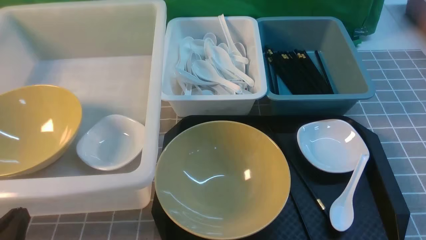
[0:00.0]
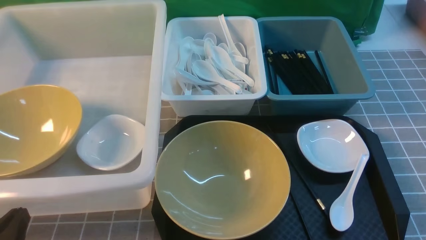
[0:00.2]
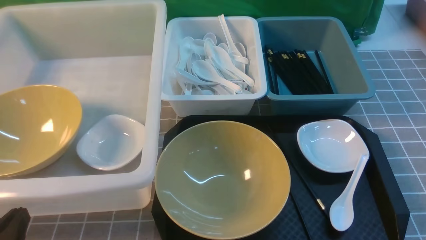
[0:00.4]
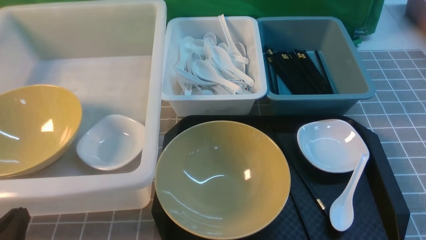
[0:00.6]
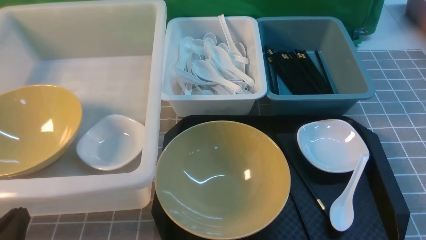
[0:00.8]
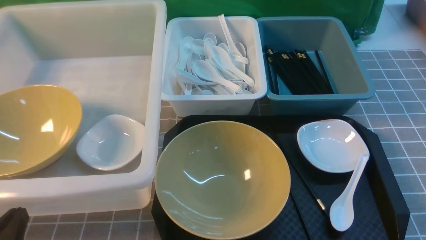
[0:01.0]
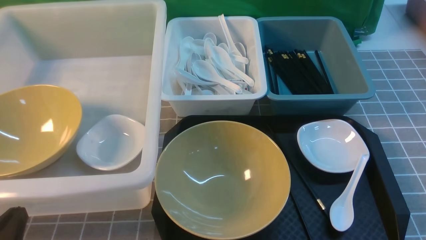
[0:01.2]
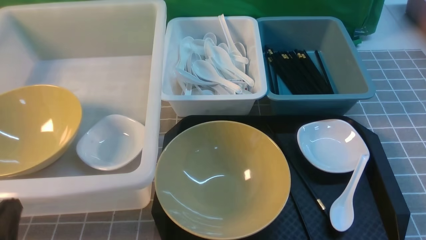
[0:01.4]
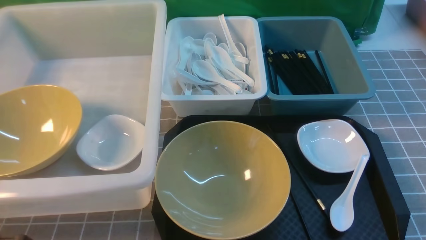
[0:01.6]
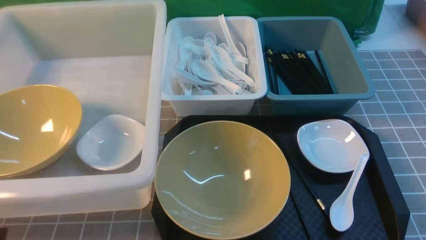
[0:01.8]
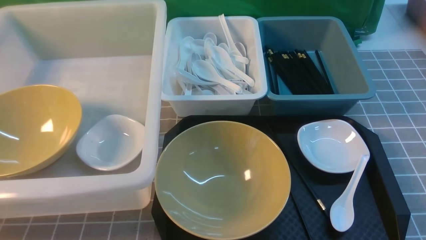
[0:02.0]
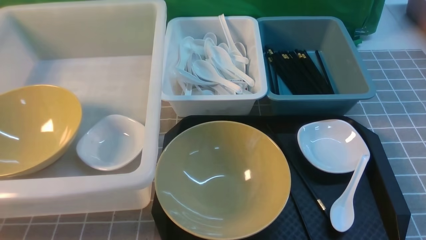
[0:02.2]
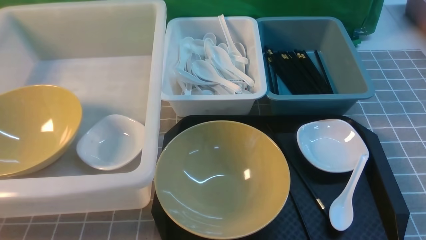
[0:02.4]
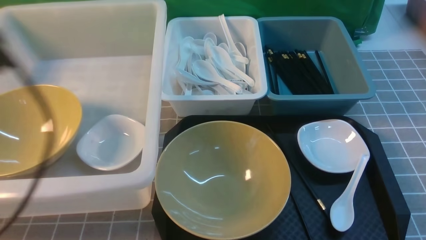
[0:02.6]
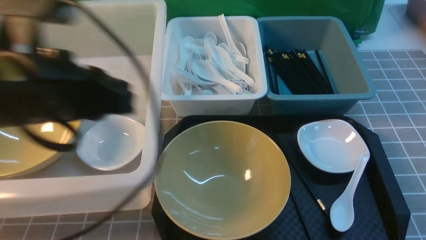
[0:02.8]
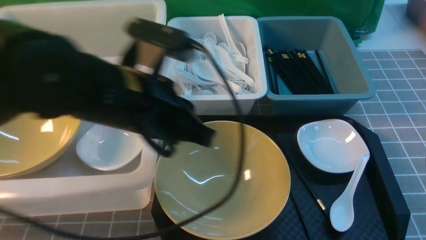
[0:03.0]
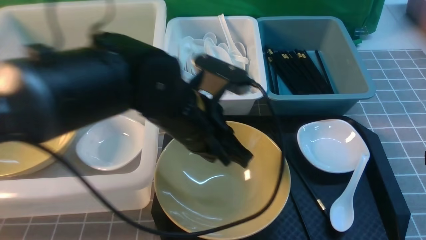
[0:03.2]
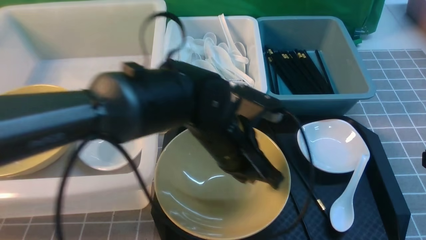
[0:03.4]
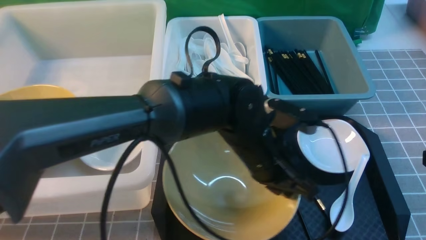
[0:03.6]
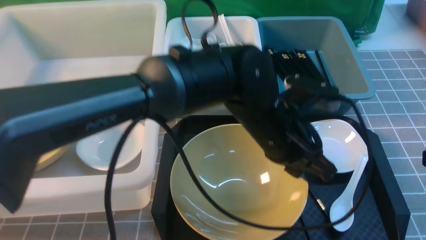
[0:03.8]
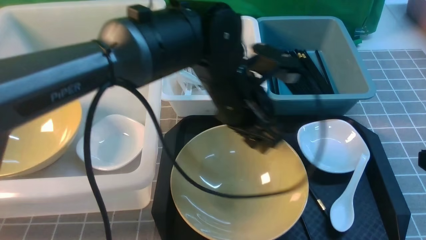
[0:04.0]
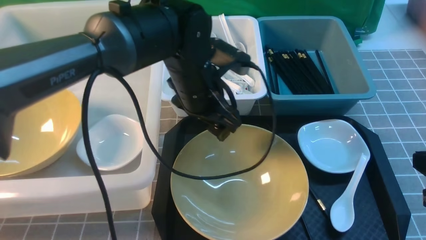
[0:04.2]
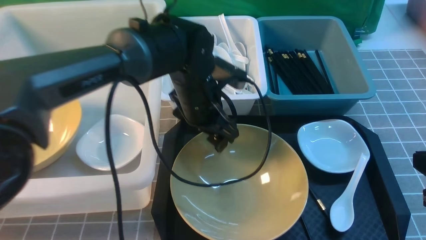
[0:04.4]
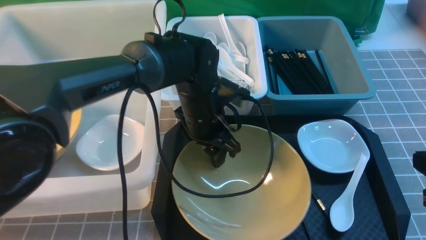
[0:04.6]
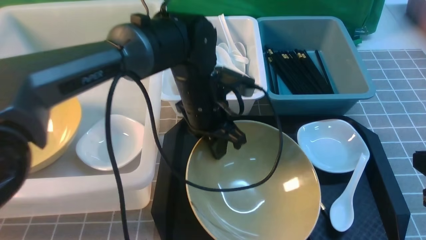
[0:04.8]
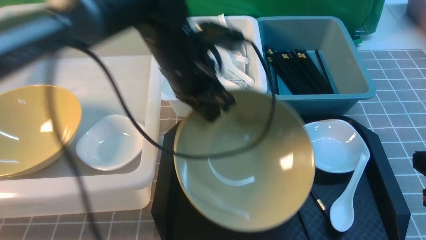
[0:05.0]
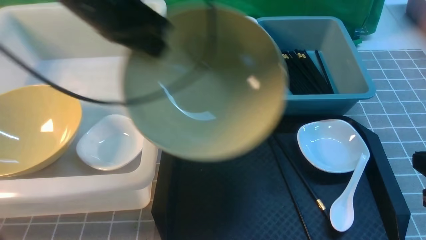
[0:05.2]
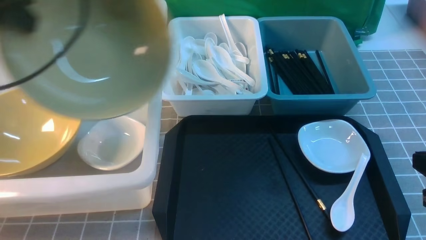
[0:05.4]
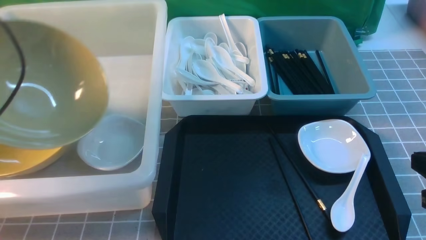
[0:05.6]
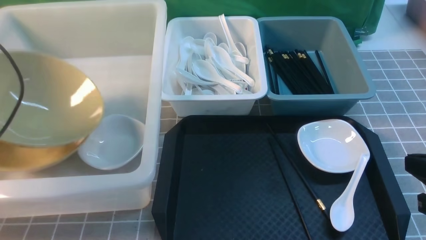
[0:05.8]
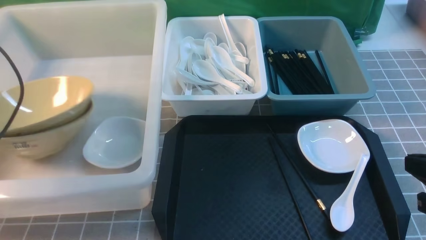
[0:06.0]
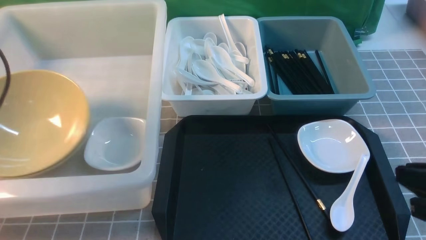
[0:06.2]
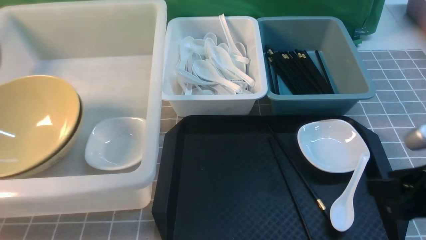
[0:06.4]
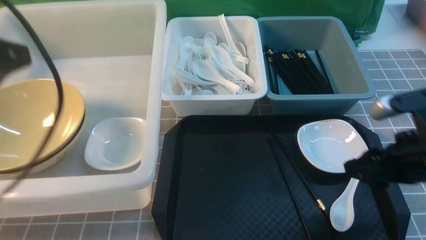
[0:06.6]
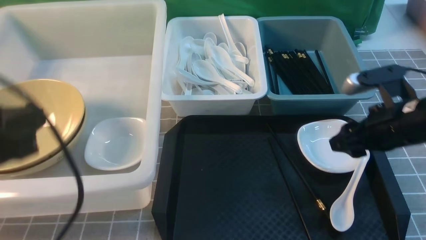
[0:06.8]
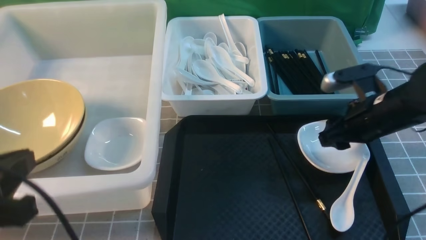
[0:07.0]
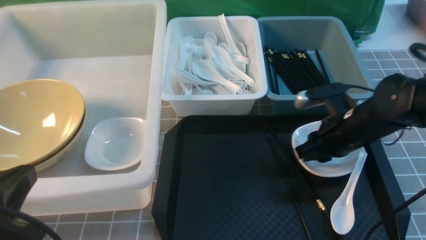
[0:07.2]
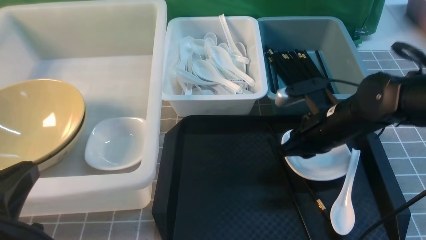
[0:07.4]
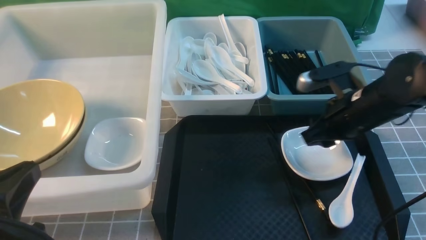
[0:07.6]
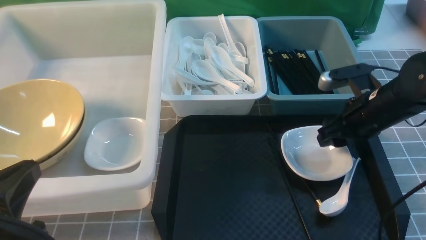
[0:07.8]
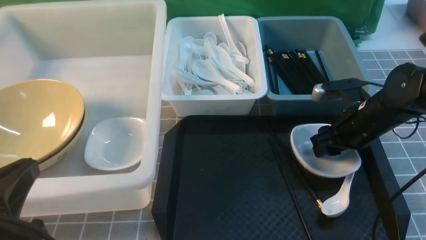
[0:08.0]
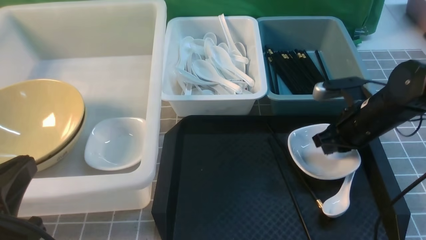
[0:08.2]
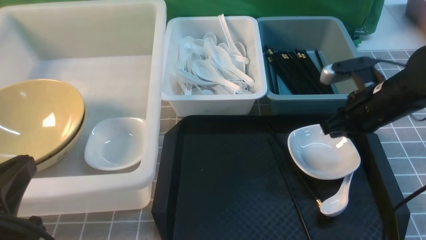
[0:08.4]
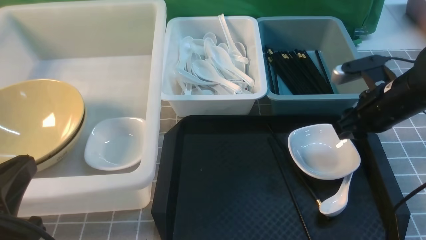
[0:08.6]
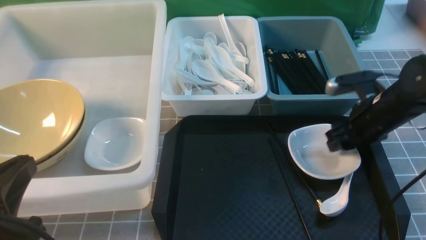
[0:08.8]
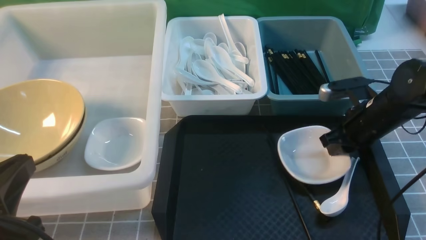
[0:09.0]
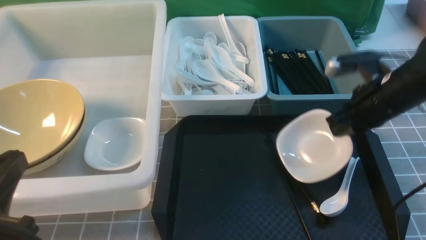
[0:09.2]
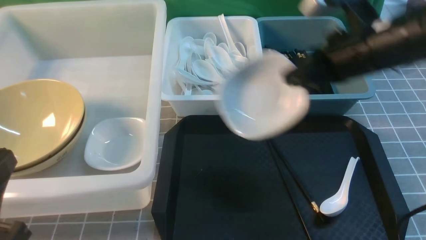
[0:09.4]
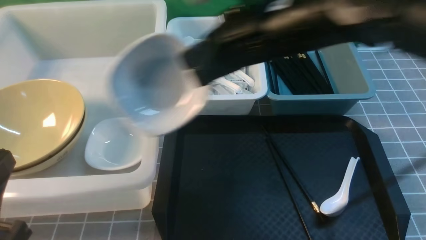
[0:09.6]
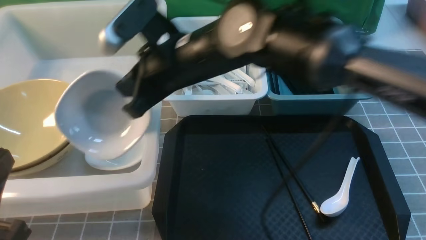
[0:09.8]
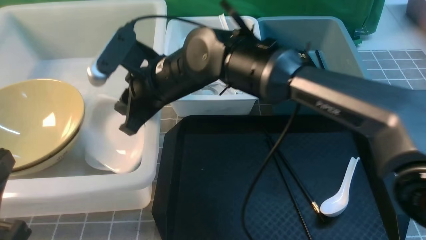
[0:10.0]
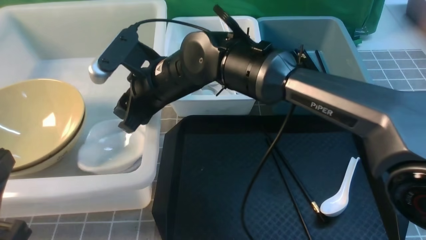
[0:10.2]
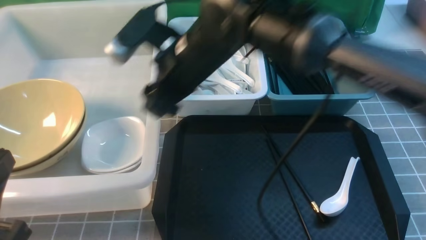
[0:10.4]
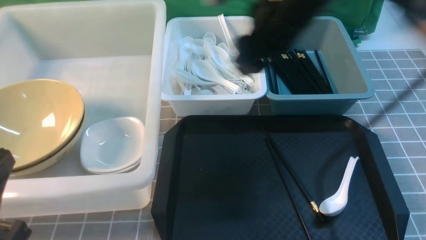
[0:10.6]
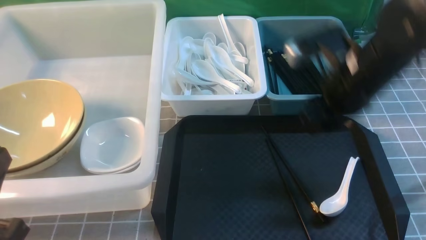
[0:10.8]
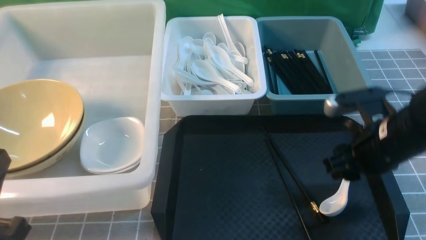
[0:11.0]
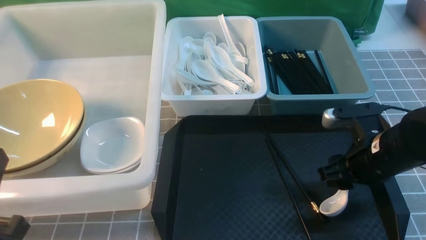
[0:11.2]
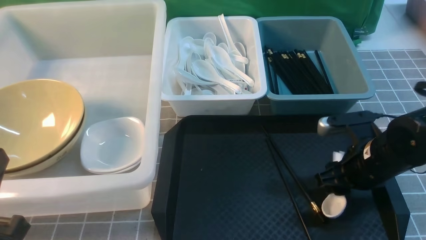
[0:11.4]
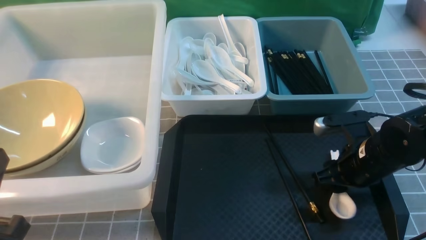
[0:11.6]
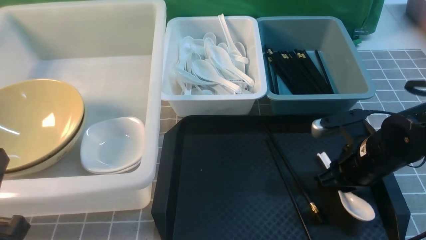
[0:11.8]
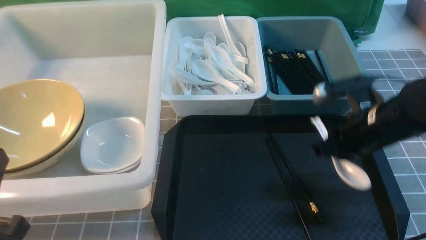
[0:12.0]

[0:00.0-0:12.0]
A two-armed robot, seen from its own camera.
Task of the whole recording: on grey table put chopsticks spoon bowls plates into blue grey white boxes.
Step, 0:00.0 to 0:05.0: use the left arm to grab the yellow noodle bowl on the left.
Step, 0:05.2 to 0:06.4: use the left arm to put the noodle bowl into the large storage box on the left.
Step, 0:06.8 to 0:09.2: use the right arm to grab the plate.
Step, 0:09.4 to 0:10.2: use the right arm to put the plate into the large storage box on the left.
Step, 0:10.4 to 0:12.0: use the right arm to grab the soup spoon in the middle.
0:01.6 to 0:03.0: The left gripper goes approximately 25 cm forward, to the right and upward. Meanwhile the right gripper goes approximately 10 cm forward and upward, and closes up.
0:03.0 to 0:04.4: The left gripper travels forward, downward and to the right by some 15 cm, and opens up.
0:04.4 to 0:06.0: The left gripper travels to the left by approximately 35 cm, and closes and opens again.
0:06.0 to 0:07.6: The right gripper goes about 20 cm forward, and opens. Meanwhile the left gripper shifts about 25 cm backward and to the right, and closes.
0:07.6 to 0:09.0: There are only small adjustments of the grippers.
0:09.0 to 0:10.4: The right gripper moves to the left and upward, approximately 25 cm, and opens its fingers.
0:10.4 to 0:12.0: The right gripper moves to the right and downward, some 20 cm, and closes.

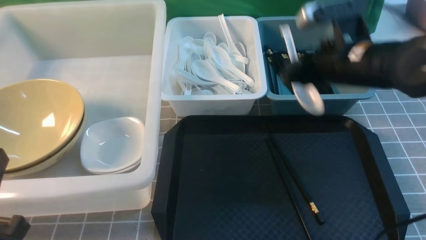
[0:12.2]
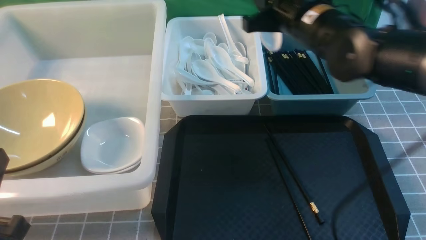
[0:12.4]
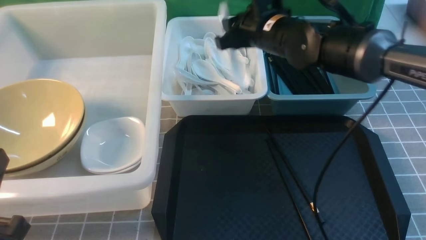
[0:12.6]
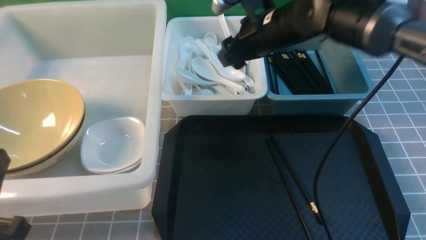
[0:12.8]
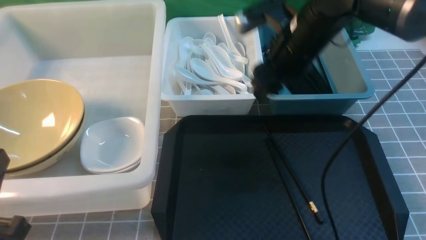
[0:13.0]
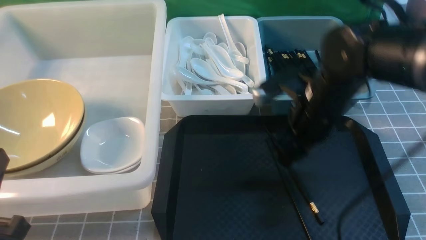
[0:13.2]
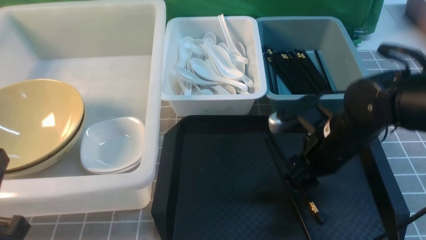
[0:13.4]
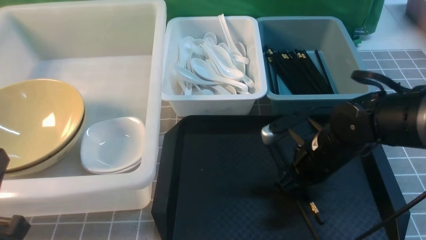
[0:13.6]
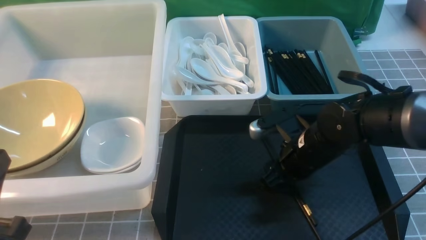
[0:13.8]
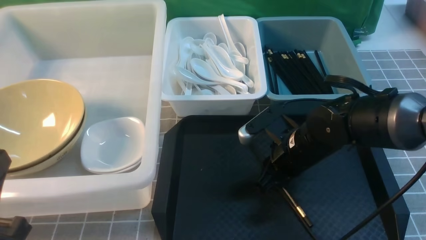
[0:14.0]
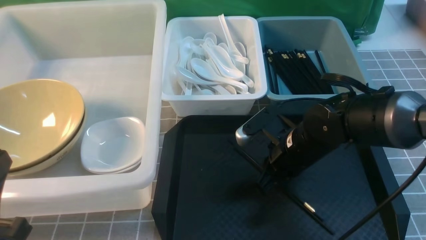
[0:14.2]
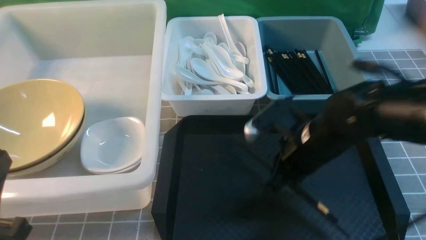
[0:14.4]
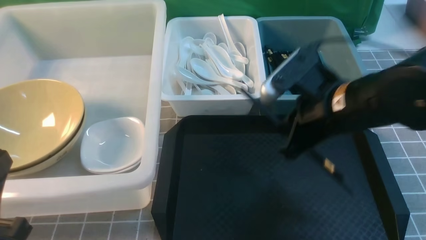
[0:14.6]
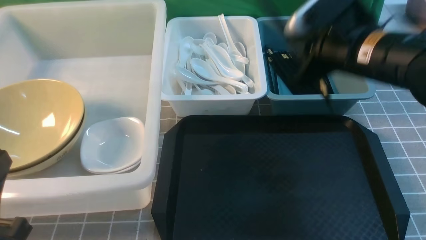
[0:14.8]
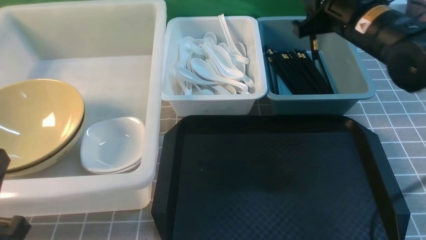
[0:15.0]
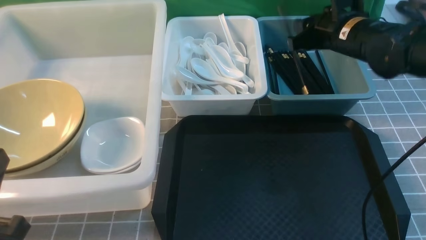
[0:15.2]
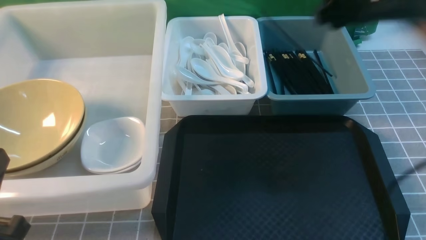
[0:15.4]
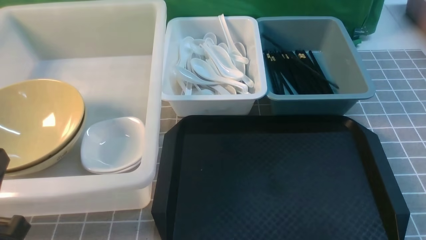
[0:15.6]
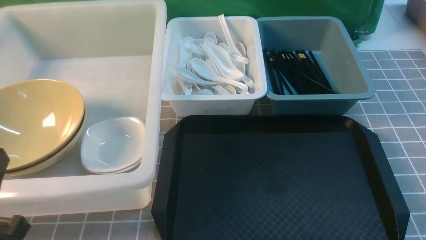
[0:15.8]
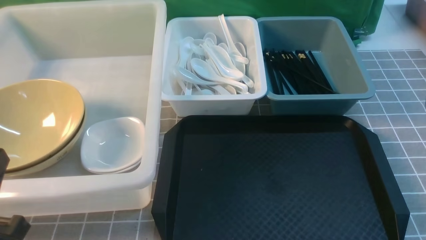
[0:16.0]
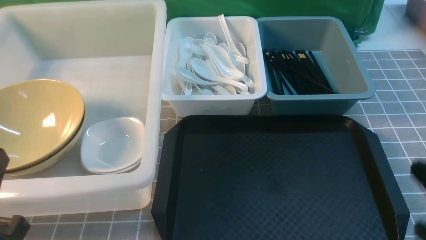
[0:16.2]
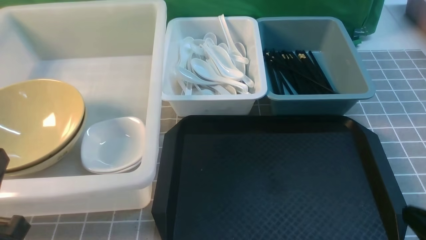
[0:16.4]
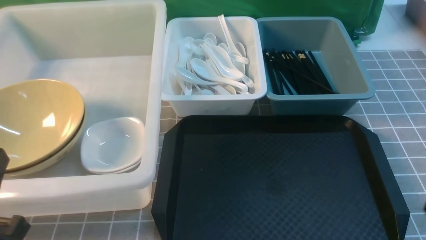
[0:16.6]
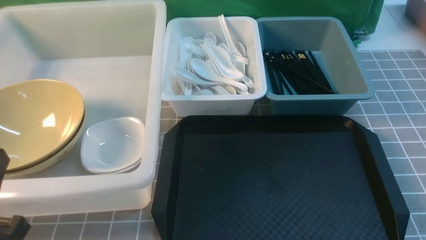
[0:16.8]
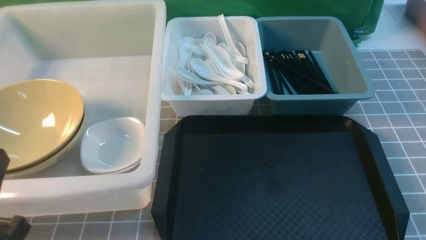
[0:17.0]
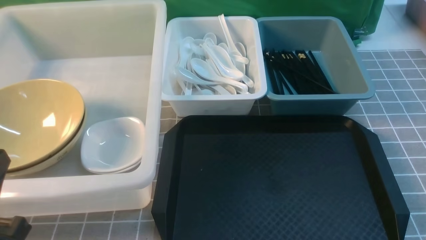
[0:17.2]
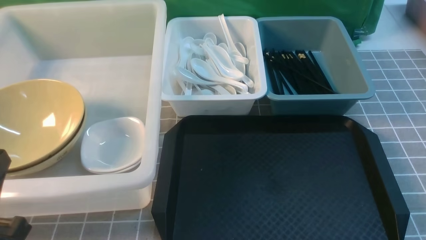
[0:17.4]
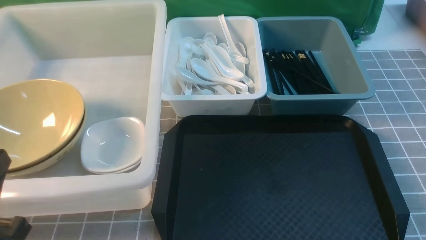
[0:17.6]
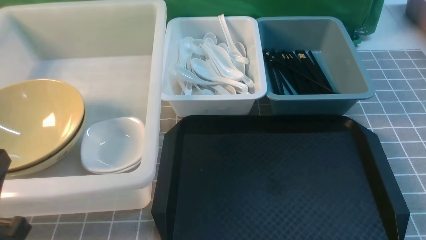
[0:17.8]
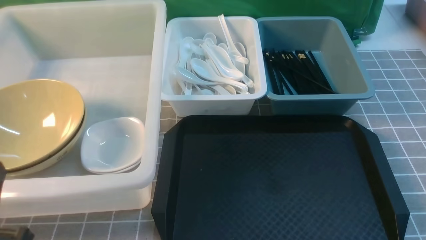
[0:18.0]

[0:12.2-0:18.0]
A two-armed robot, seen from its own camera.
Task of the whole recording: on grey table put chopsticks spoon bowls plates into blue grey white boxes.
Step, 0:12.2 to 0:12.8: use the right arm to put the soup spoon into the small storage box in the middle.
Step, 0:13.0 to 0:14.6: use the right arm to grab the chopsticks.
Step, 0:15.0 to 0:15.2: use the right arm to put the chopsticks into the small storage box on the right.
0:12.2 to 0:13.6: The right gripper goes approximately 15 cm downward and backward, and opens its fingers.
0:13.6 to 0:15.0: The right gripper heads upward and forward, covering roughly 15 cm, and closes its fingers.
0:15.0 to 0:16.6: The right gripper goes approximately 35 cm backward and downward, and closes its fingers.
